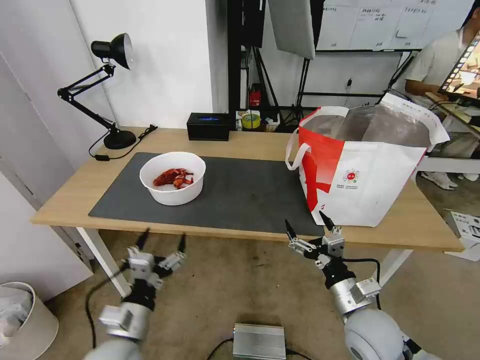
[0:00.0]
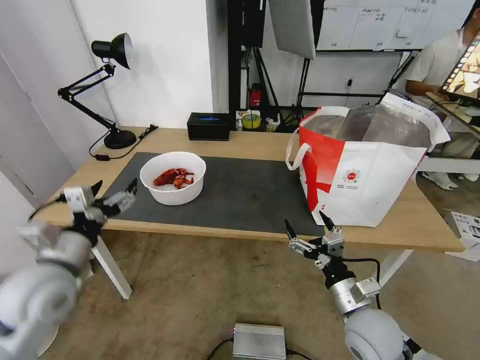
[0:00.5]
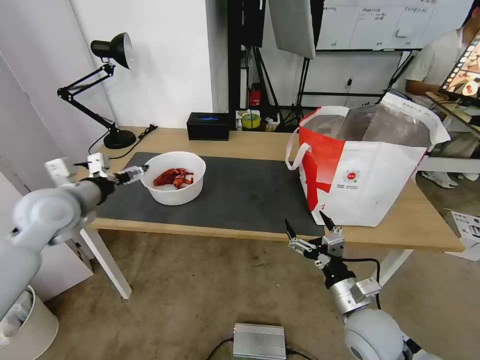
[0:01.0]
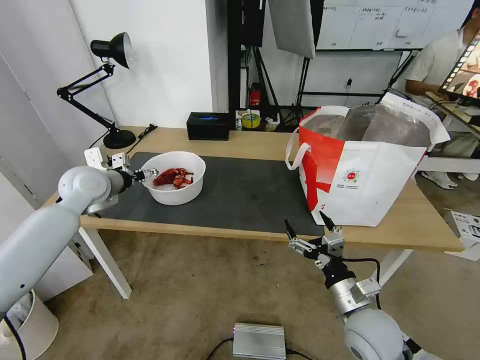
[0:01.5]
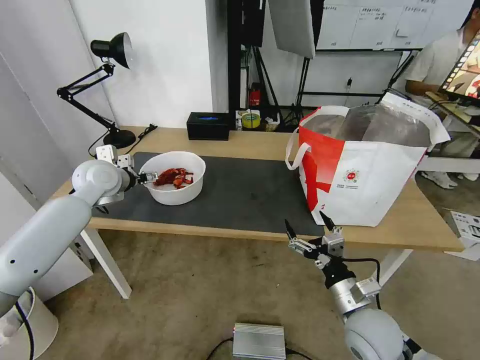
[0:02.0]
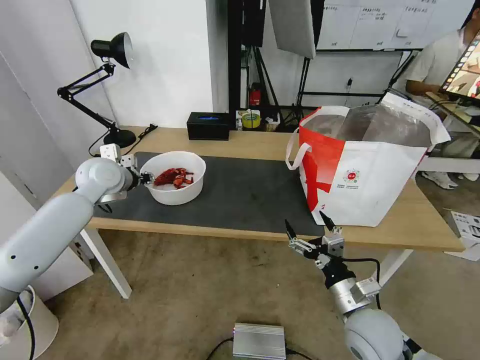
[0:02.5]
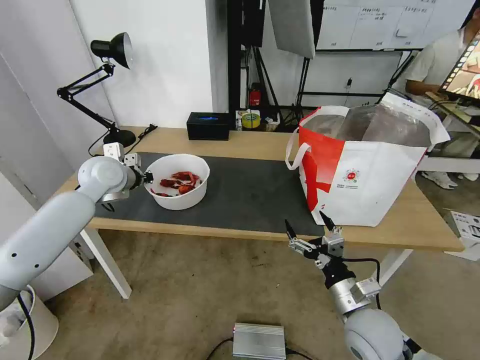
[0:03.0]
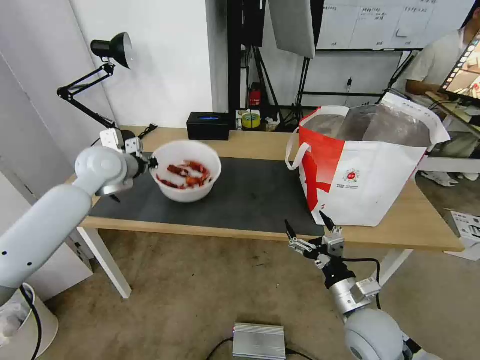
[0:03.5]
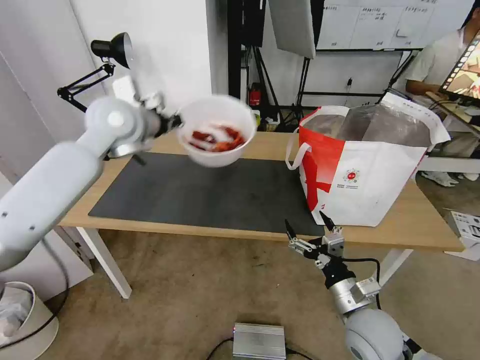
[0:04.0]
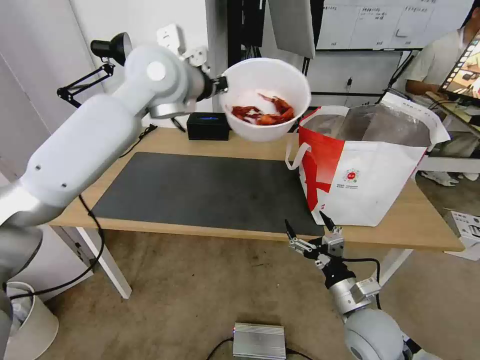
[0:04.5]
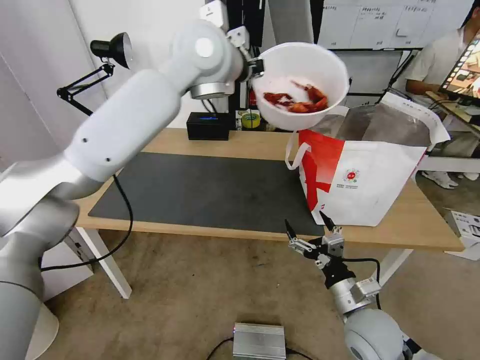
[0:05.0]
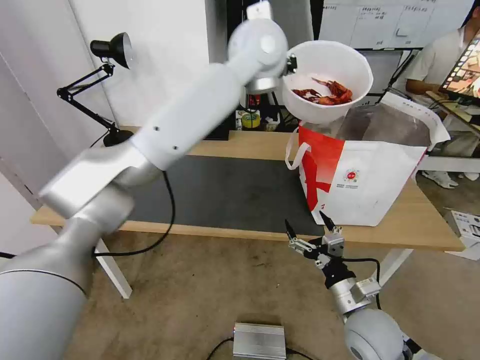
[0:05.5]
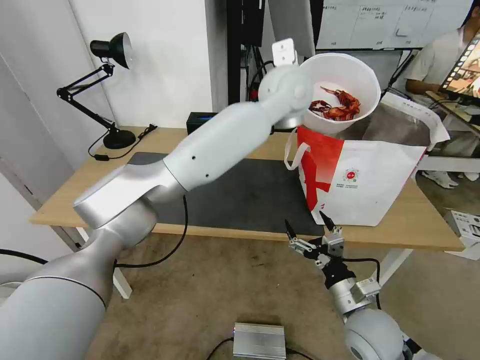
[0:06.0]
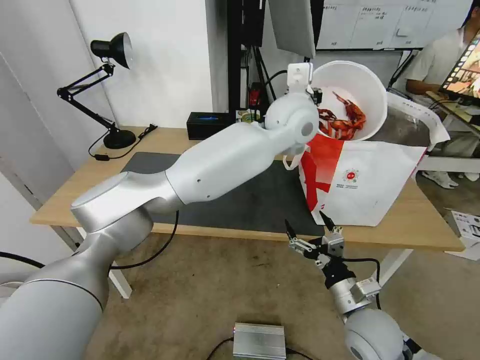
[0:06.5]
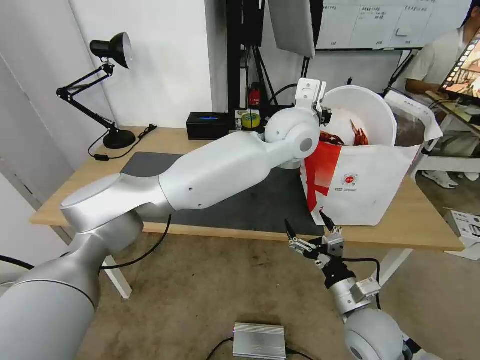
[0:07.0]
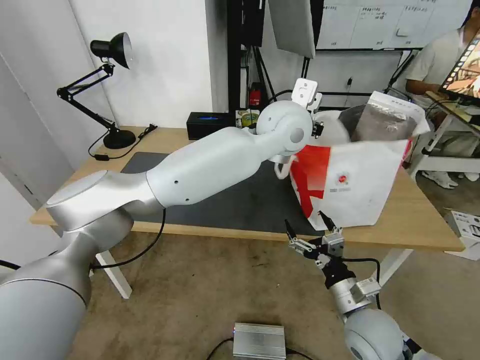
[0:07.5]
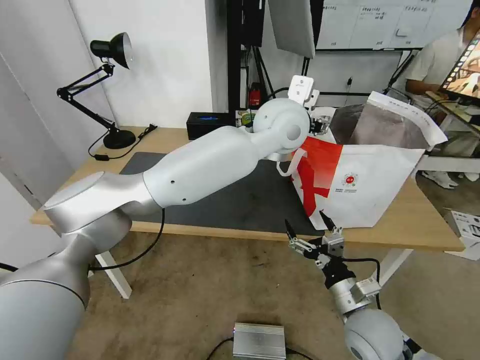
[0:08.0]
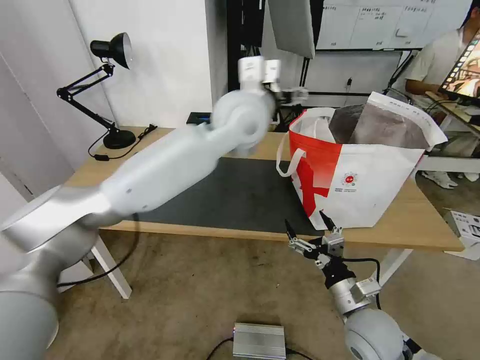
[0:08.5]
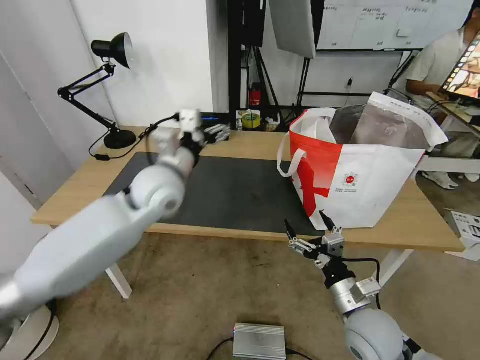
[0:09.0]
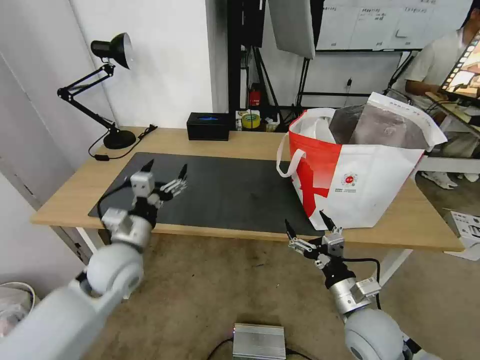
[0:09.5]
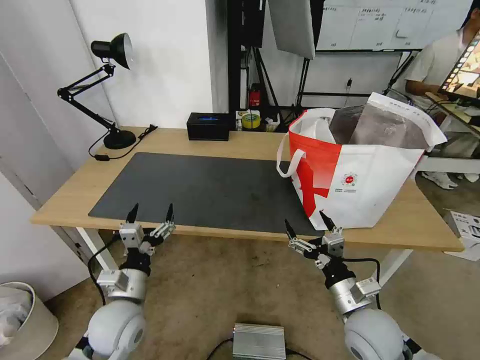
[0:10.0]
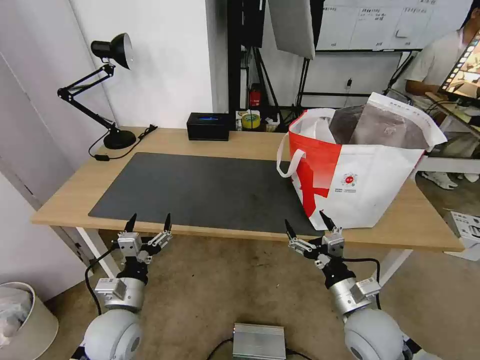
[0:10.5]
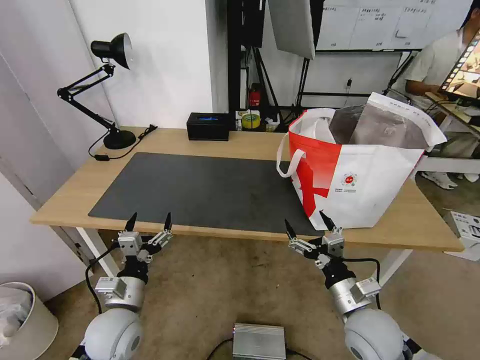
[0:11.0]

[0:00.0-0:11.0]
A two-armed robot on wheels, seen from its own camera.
Task of the whole recording: Pick up the trash from the table and place it into the takeout bag.
0:00.0 to 0:02.0: The left gripper moves forward and upward, roughly 35 cm.
0:02.0 to 0:03.5: The left gripper shifts by some 5 cm, and closes its fingers.
0:03.5 to 0:05.5: The left gripper travels to the right and upward by some 40 cm.
0:05.5 to 0:07.5: The left gripper goes about 10 cm downward and backward.
0:07.5 to 0:09.0: The left gripper shifts some 25 cm to the left and downward, and opens its fingers.
0:09.0 to 0:11.0: The left gripper shifts some 30 cm downward, backward and to the left.

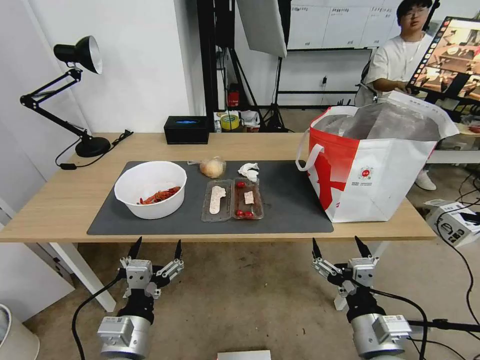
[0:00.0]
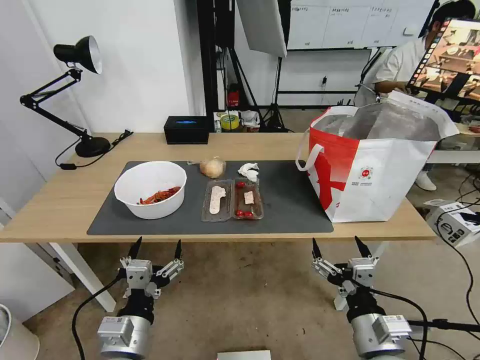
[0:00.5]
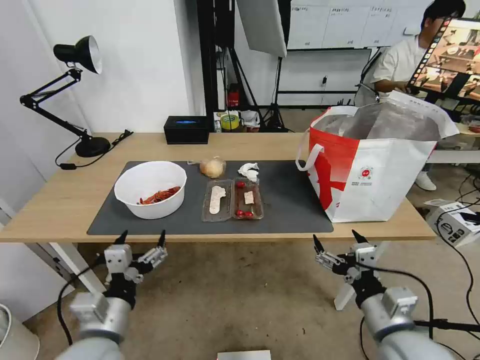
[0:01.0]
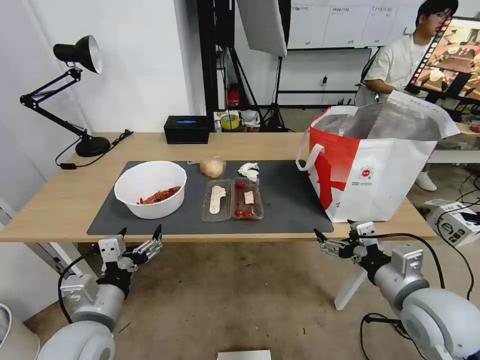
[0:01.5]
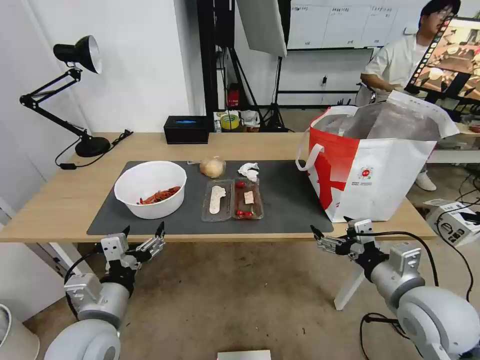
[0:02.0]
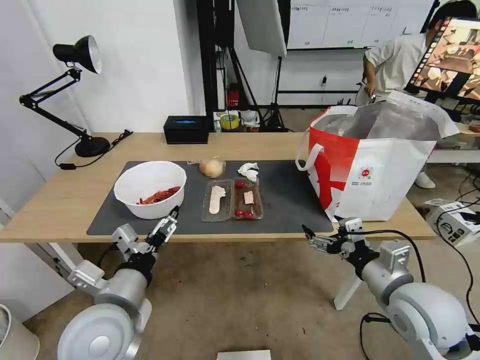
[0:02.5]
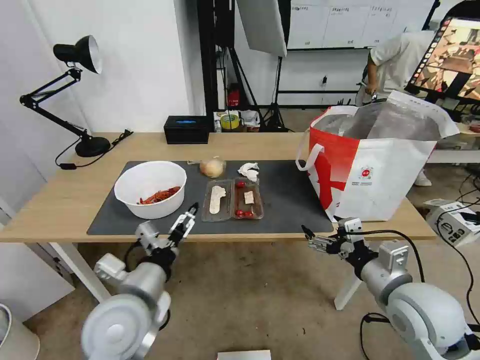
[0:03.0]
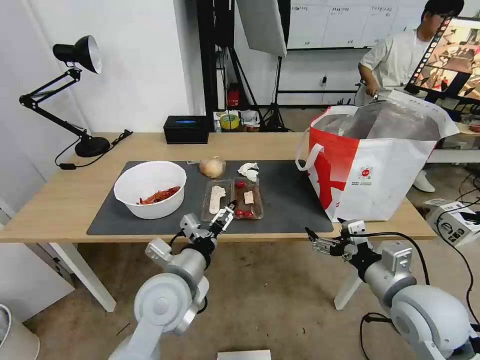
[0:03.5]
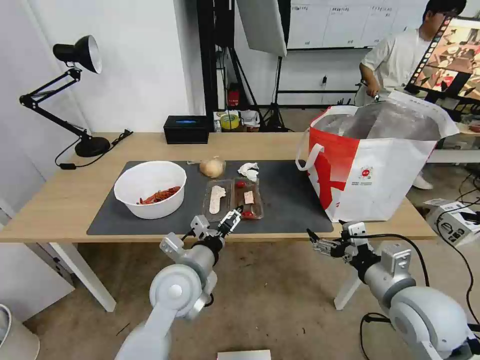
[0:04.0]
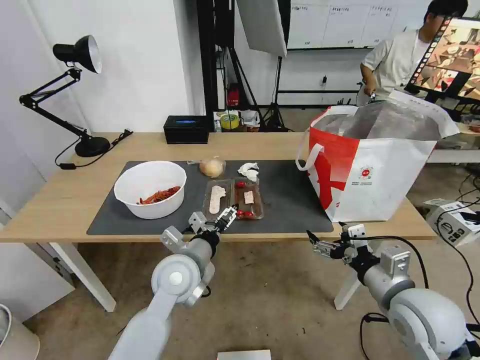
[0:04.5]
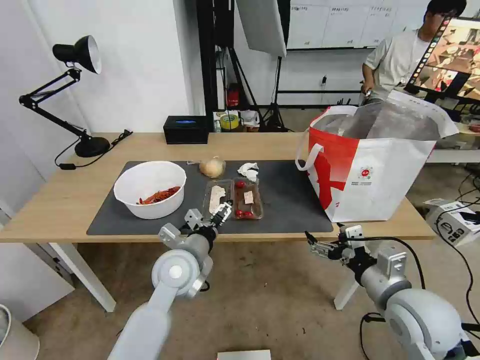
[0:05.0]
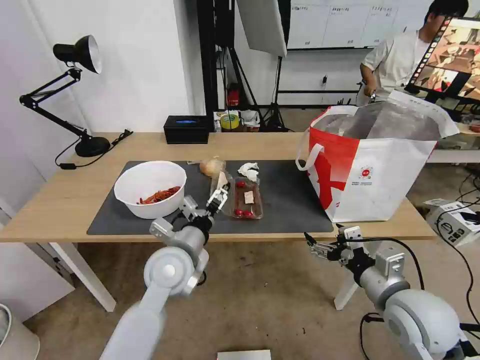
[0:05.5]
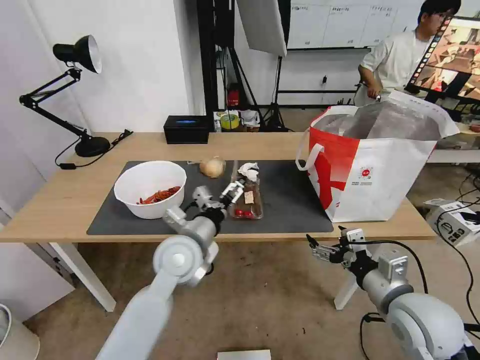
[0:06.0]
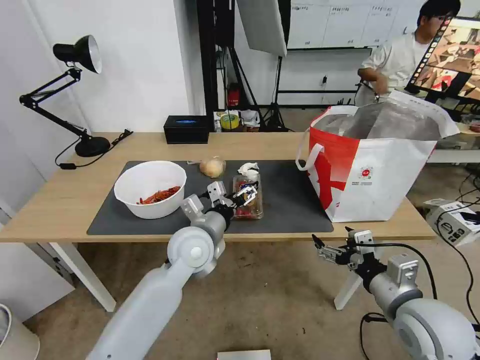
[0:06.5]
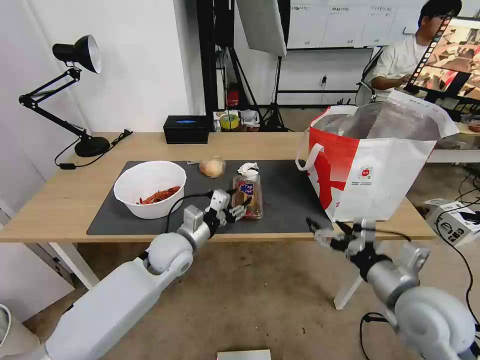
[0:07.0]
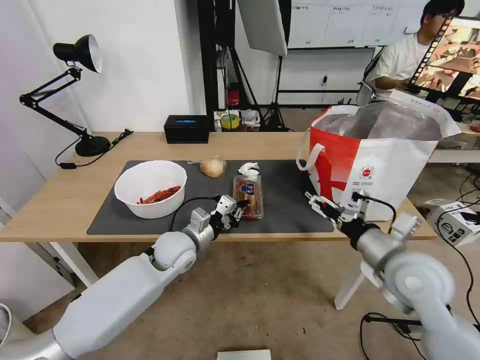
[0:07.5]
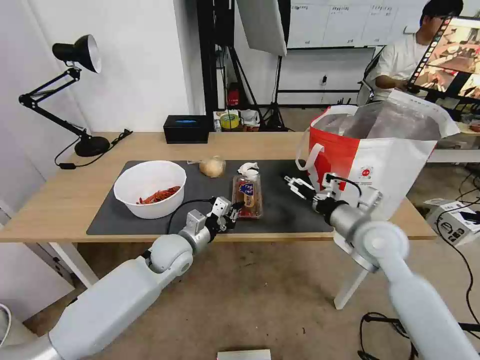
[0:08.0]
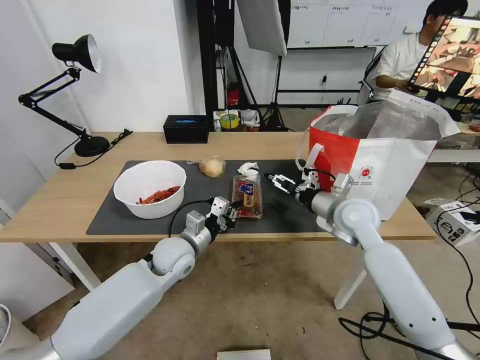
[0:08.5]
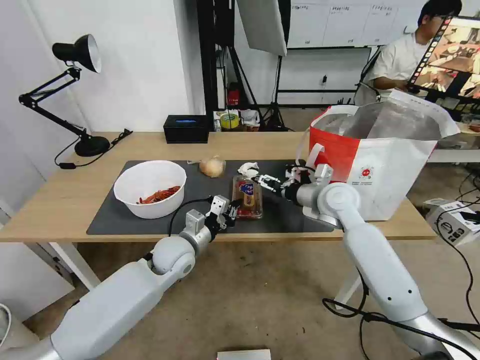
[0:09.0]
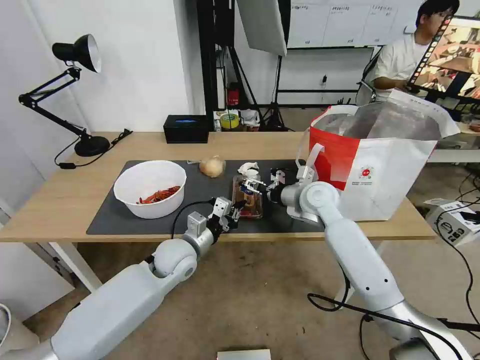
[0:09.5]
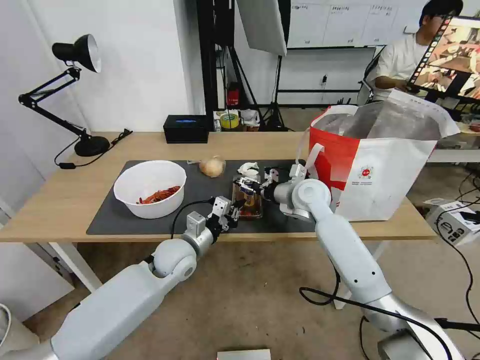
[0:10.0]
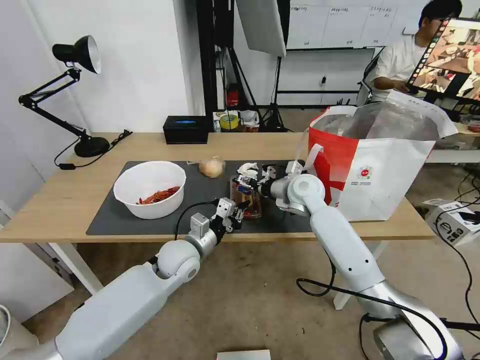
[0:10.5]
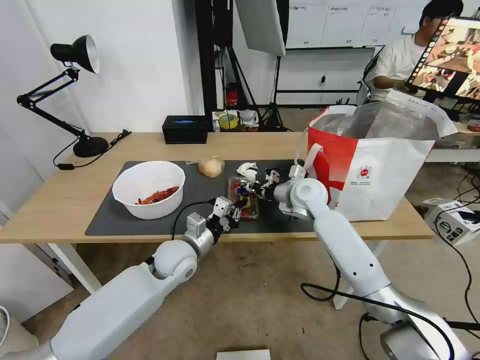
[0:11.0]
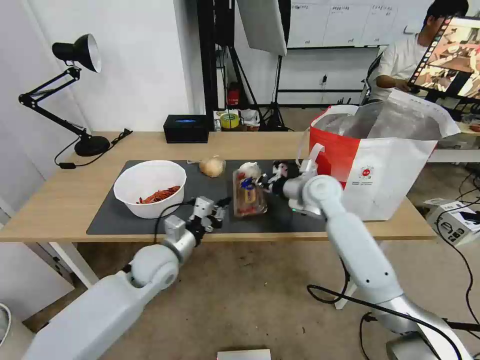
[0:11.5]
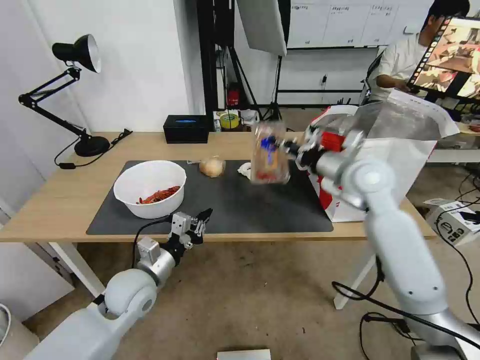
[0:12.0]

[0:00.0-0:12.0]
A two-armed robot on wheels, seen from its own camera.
Task of the whole recording: Pick up the trash from the table and place it into the takeout bag.
0:02.0 to 0:04.0: The left gripper is displaced to the right and forward by some 15 cm.
0:04.0 to 0:06.0: The left gripper goes some 5 cm forward.
0:06.0 to 0:08.0: The left gripper travels downward and forward by roughly 10 cm, and closes, while the right gripper moves forward, approximately 15 cm.
0:08.0 to 0:10.0: The right gripper is displaced forward and to the left by some 15 cm.
0:10.0 to 0:12.0: The right gripper goes approximately 15 cm upward, to the right and backward, and closes up; the left gripper shifts about 10 cm backward and to the left.

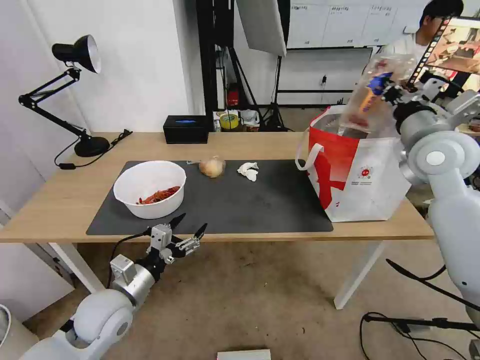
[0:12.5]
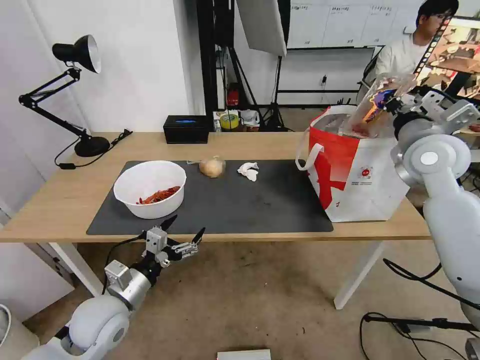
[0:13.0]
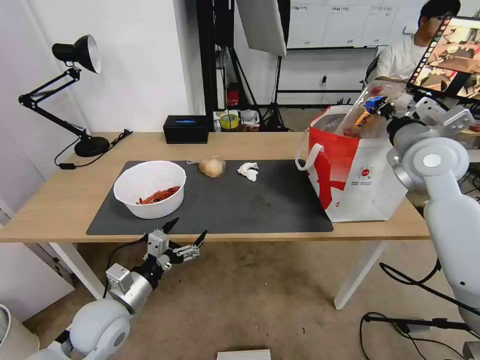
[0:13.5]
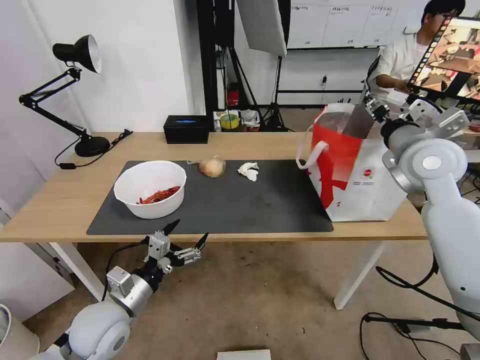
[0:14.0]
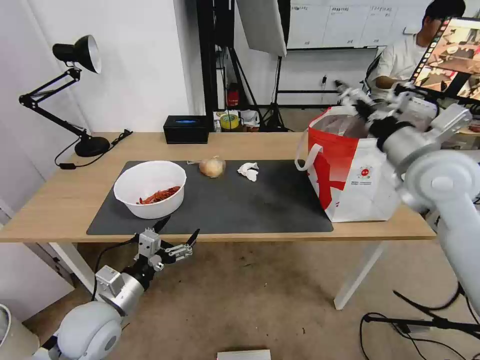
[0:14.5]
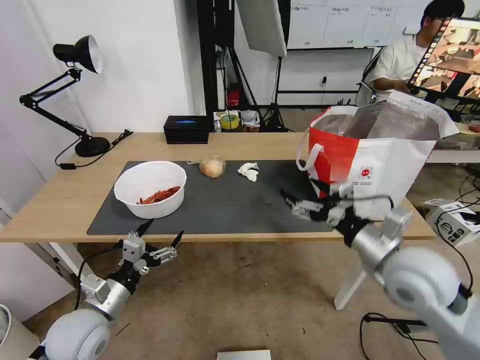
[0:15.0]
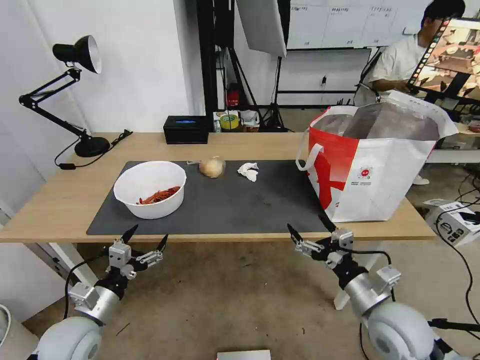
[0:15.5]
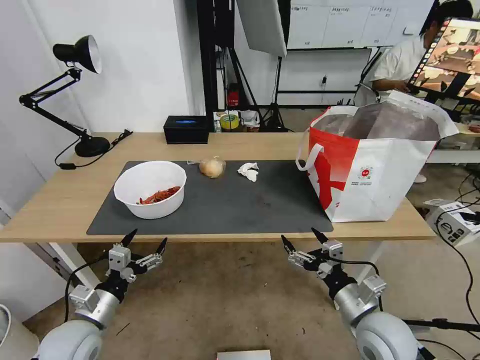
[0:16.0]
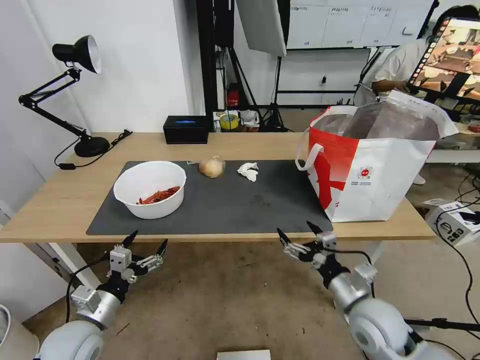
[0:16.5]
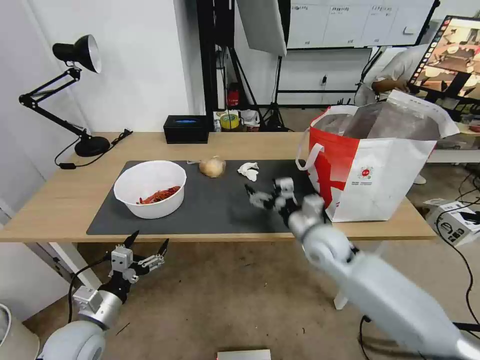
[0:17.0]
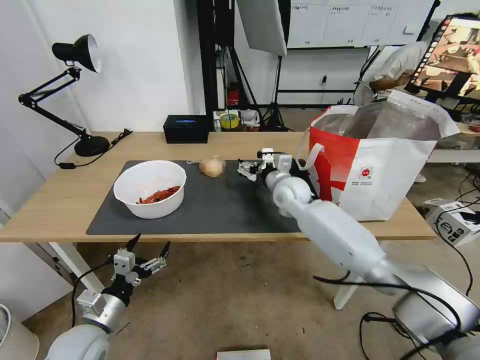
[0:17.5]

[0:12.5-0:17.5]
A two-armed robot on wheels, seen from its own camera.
Task of the whole recording: Pick up the trash from the table and place it into the takeout bag.
0:12.5 to 0:15.0: The right gripper is displaced backward, downward and to the left by about 20 cm, and opens its fingers. The left gripper ends up about 5 cm from where it was.
0:15.0 to 0:17.5: The left gripper moves some 5 cm. Meanwhile the right gripper moves forward and to the left, about 30 cm.
